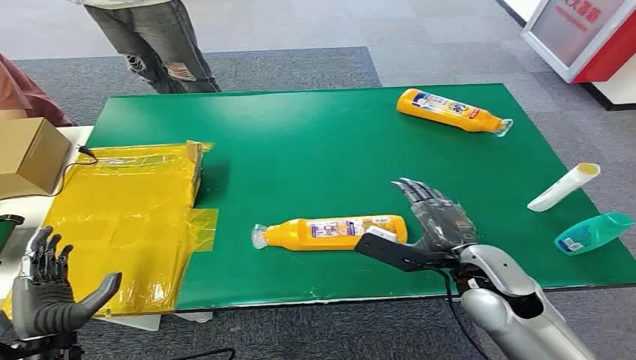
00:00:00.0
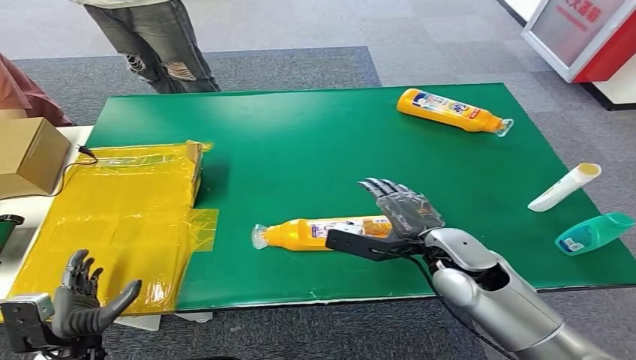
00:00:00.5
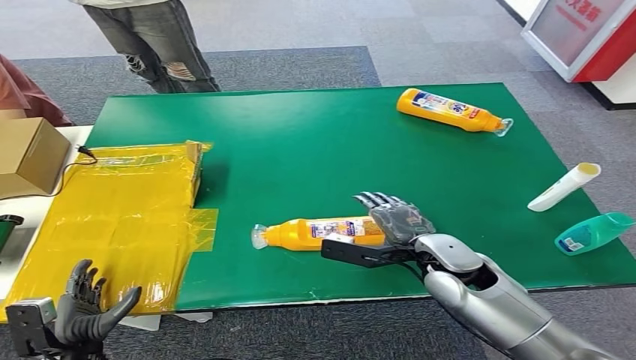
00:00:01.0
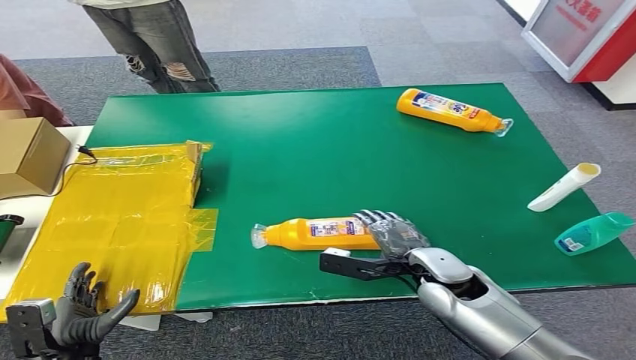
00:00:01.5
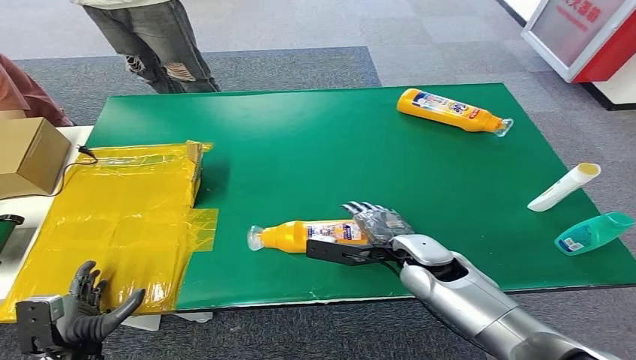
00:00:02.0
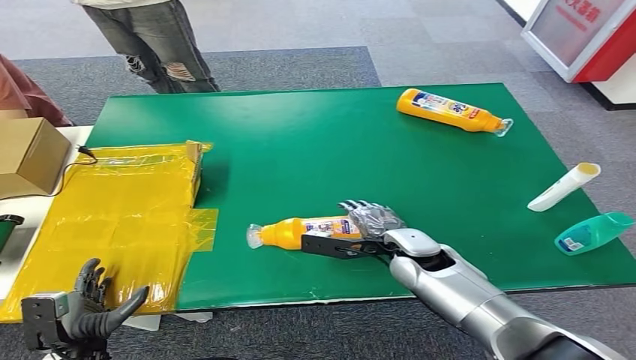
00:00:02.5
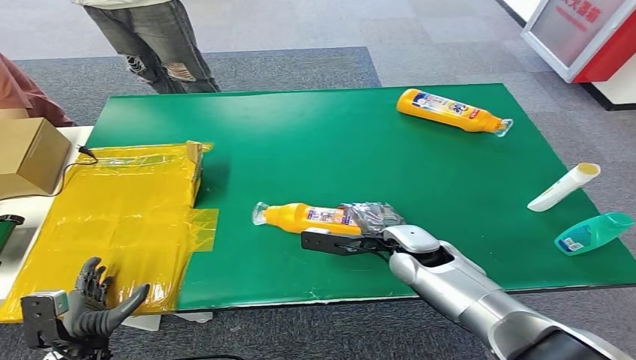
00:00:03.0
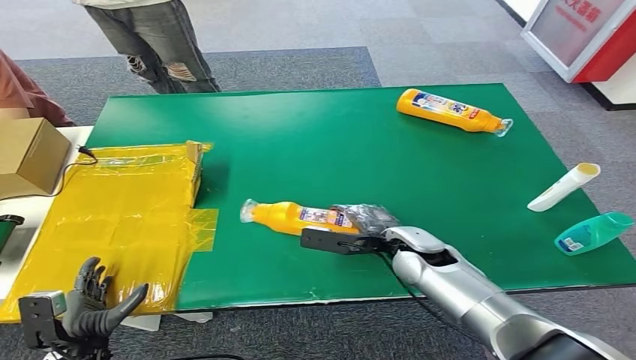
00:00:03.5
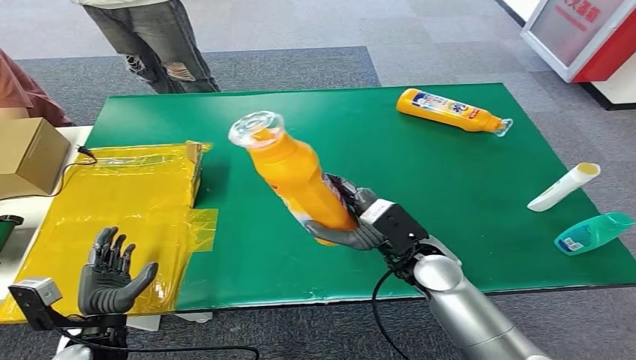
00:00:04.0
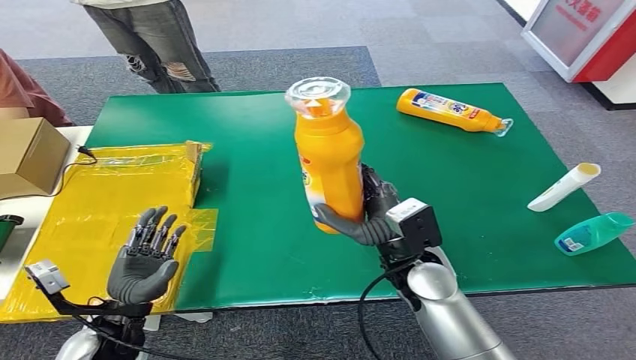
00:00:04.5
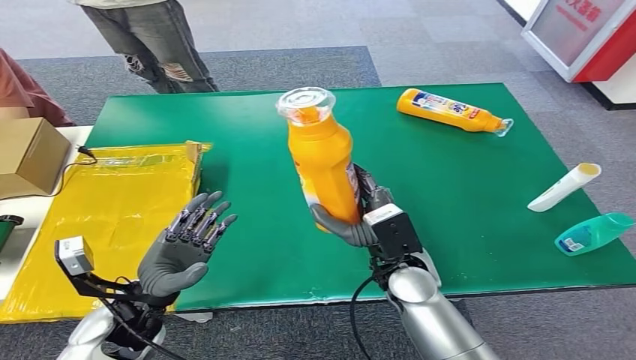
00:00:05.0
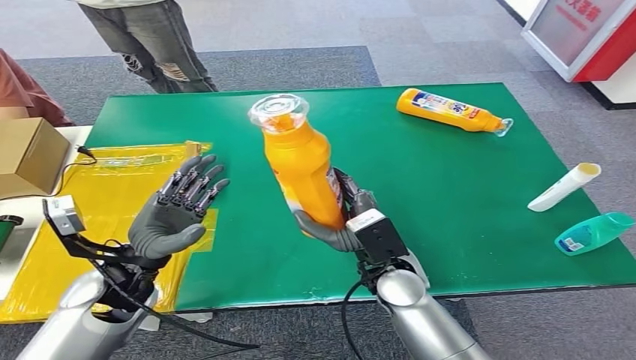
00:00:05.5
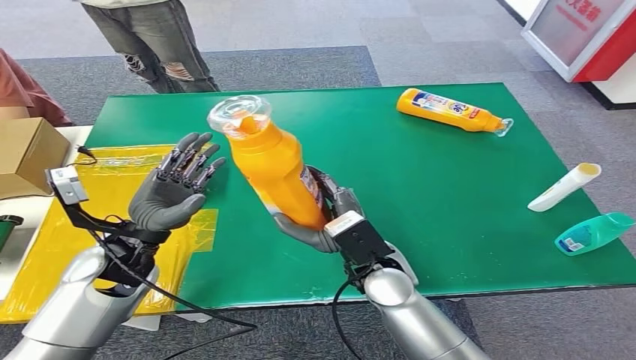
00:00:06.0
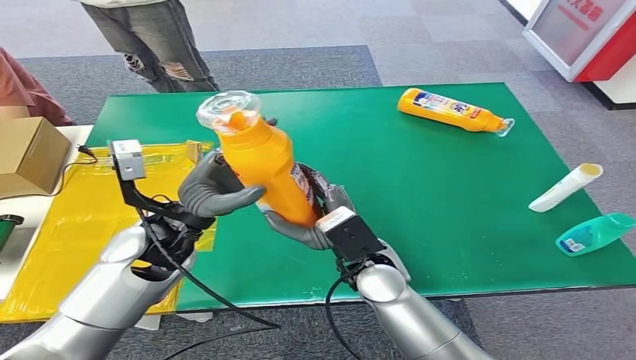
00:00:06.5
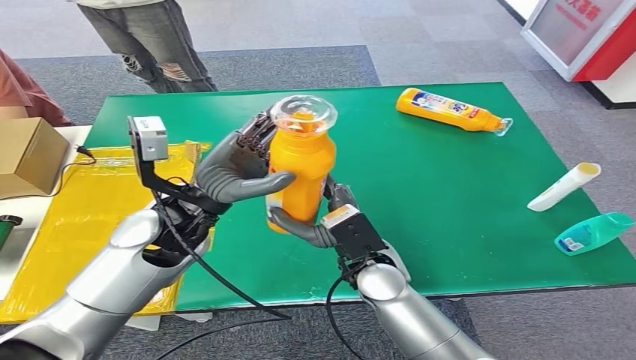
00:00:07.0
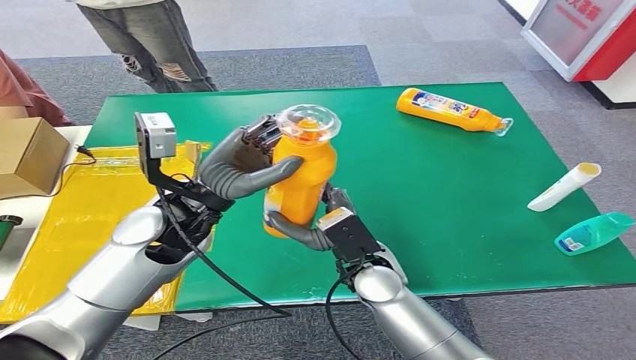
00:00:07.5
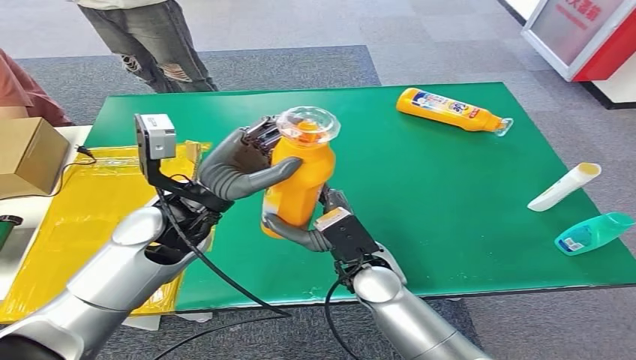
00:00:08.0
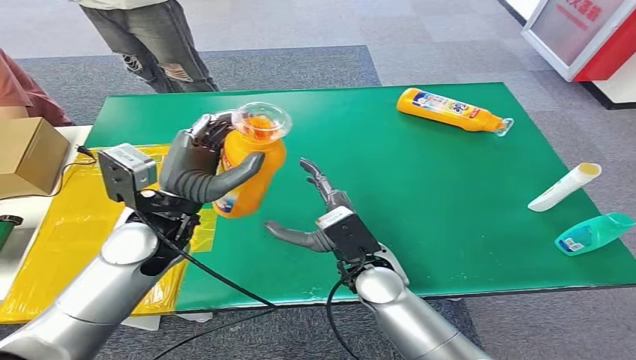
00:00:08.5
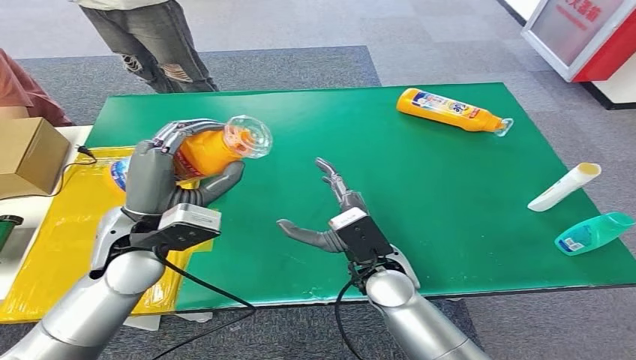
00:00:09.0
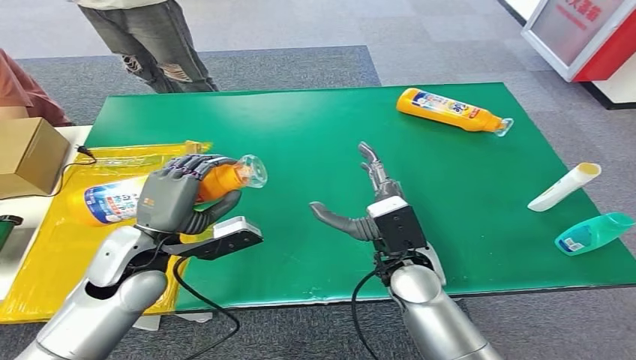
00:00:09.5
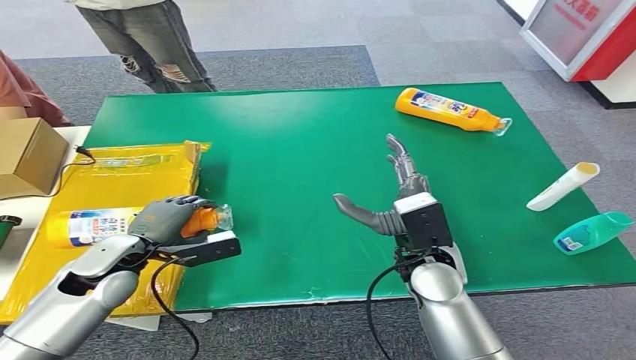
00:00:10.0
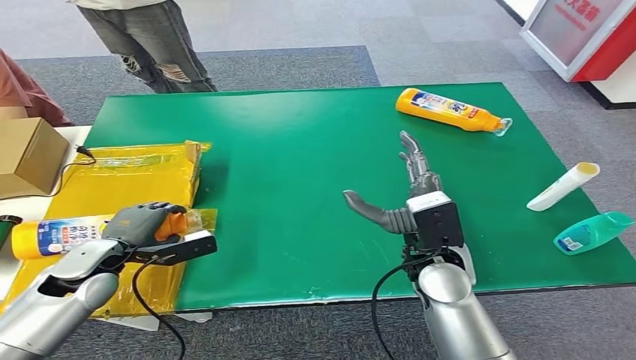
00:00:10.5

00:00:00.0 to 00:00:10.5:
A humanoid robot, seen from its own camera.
Step, 00:00:00.0 to 00:00:04.0: Pick up the bottle from the table.
Step, 00:00:04.5 to 00:00:10.5: Turn the bottle to the front side.
00:00:02.0 to 00:00:04.0: The left hand ends up about 5 cm from where it was.

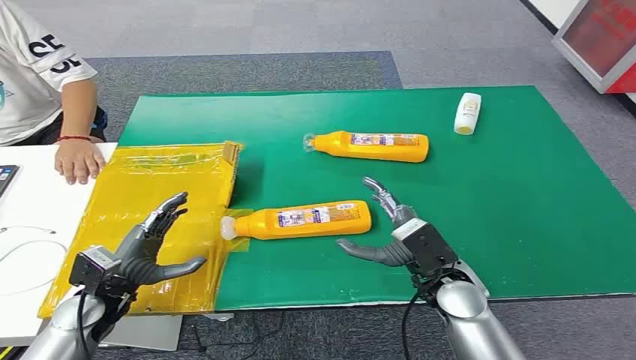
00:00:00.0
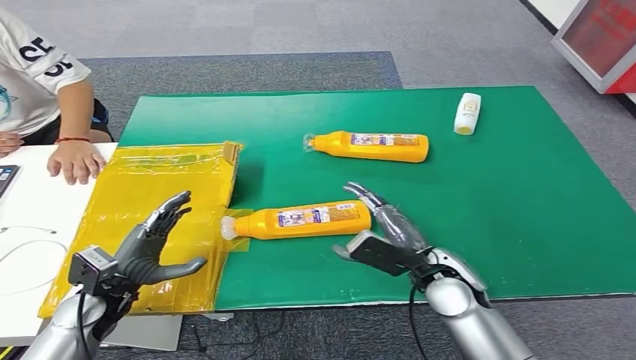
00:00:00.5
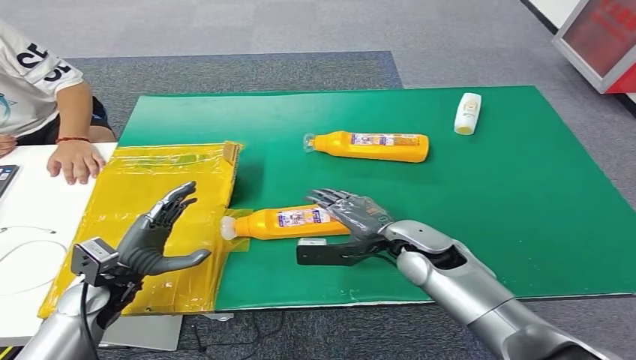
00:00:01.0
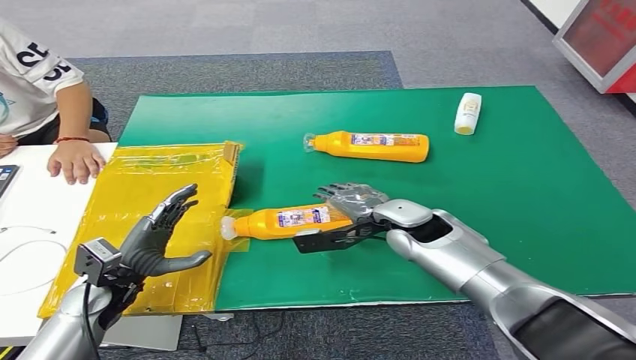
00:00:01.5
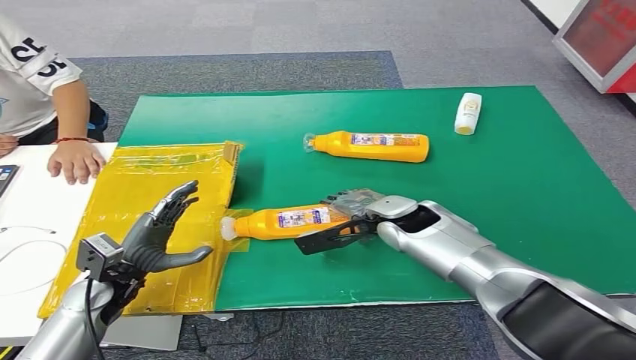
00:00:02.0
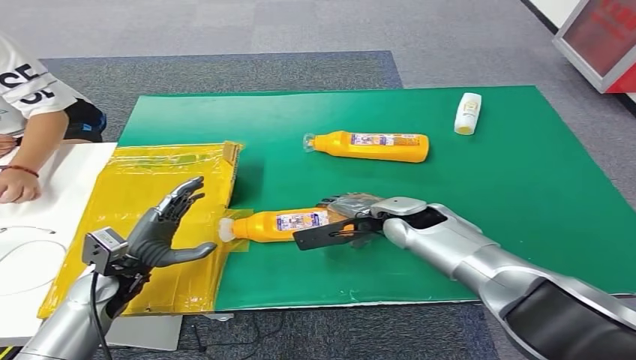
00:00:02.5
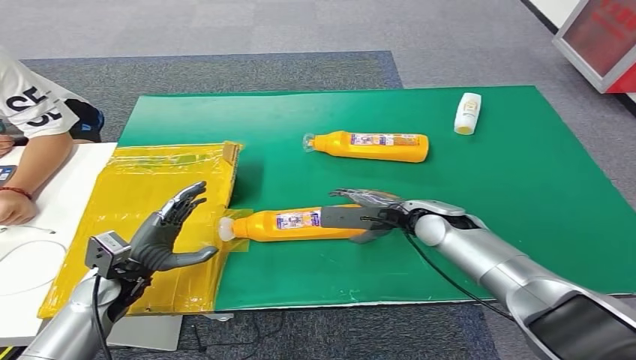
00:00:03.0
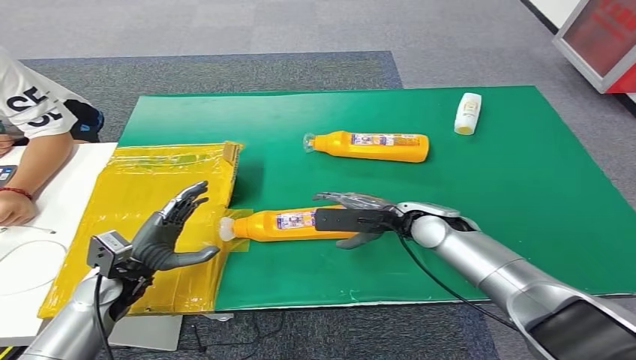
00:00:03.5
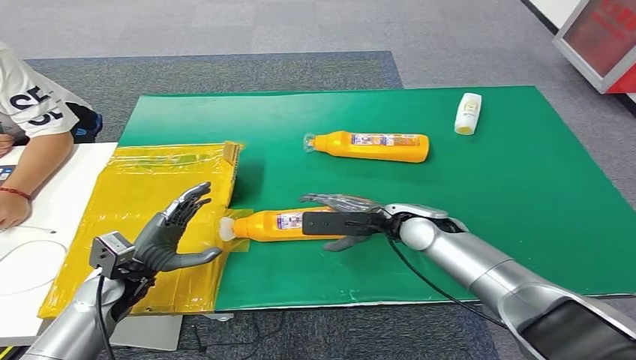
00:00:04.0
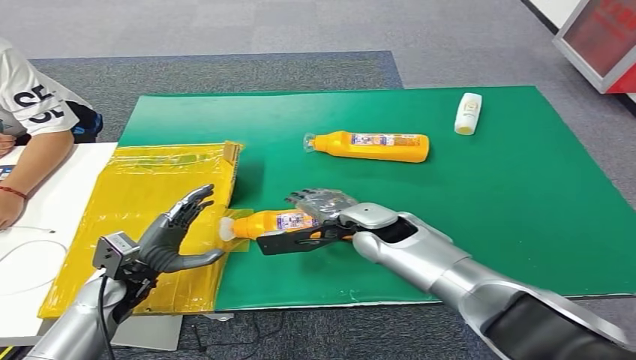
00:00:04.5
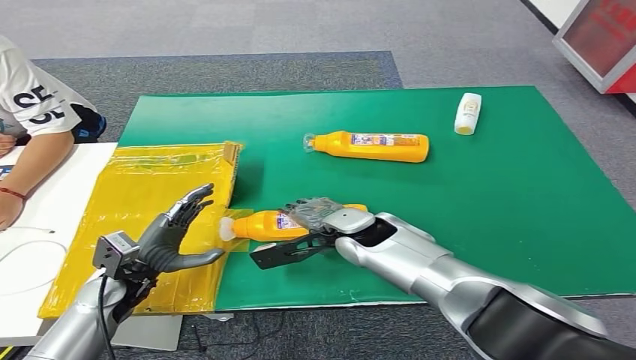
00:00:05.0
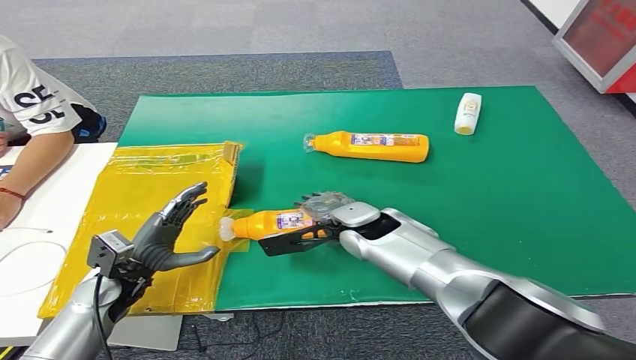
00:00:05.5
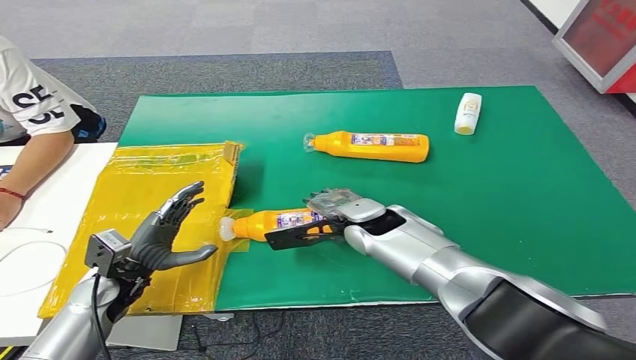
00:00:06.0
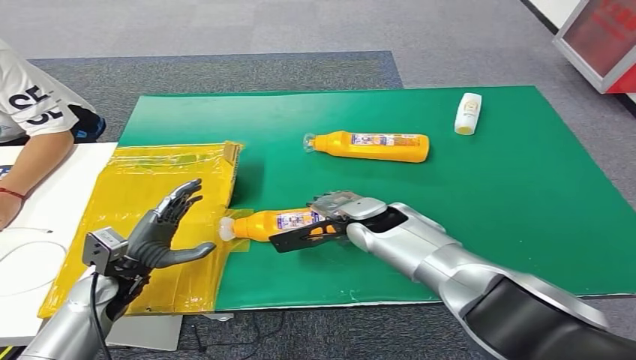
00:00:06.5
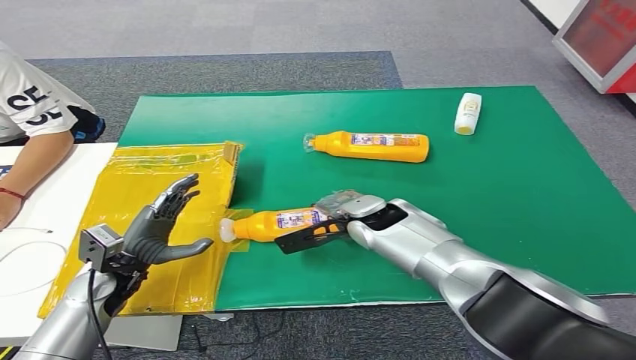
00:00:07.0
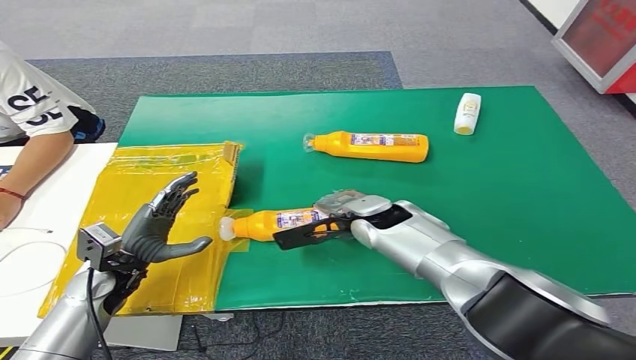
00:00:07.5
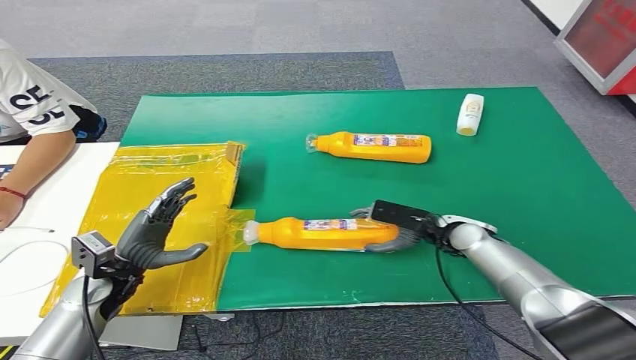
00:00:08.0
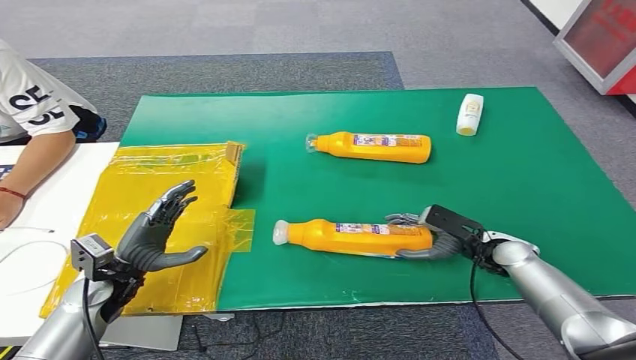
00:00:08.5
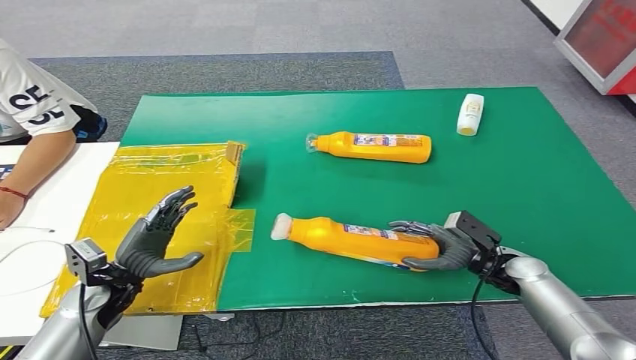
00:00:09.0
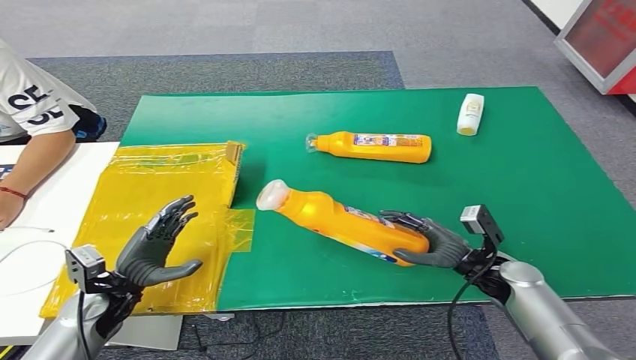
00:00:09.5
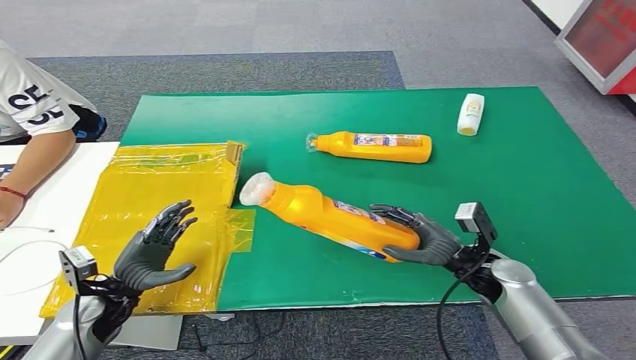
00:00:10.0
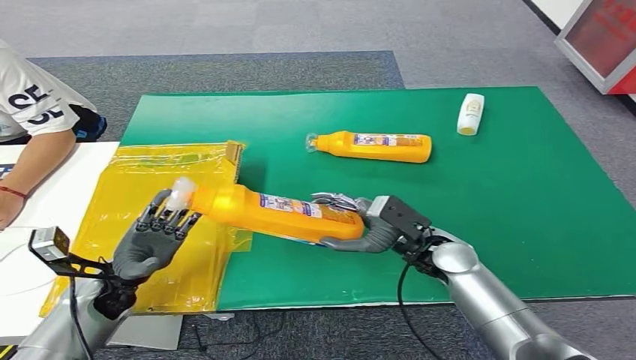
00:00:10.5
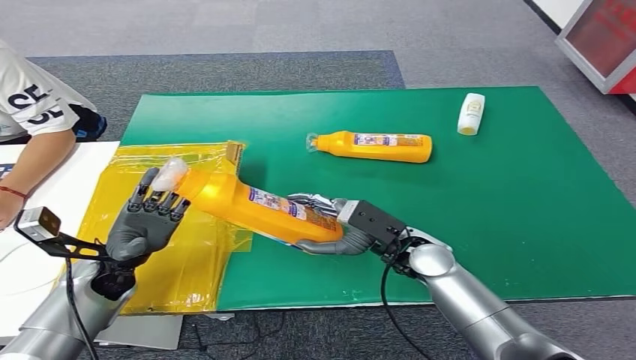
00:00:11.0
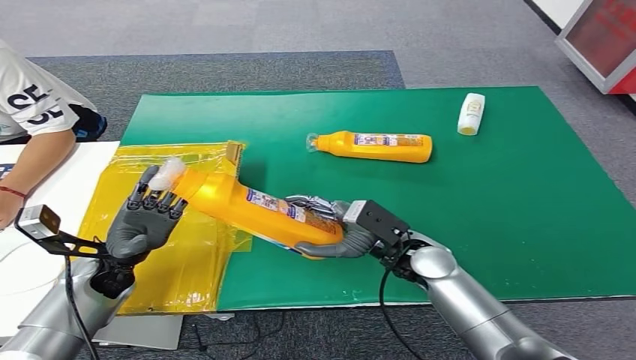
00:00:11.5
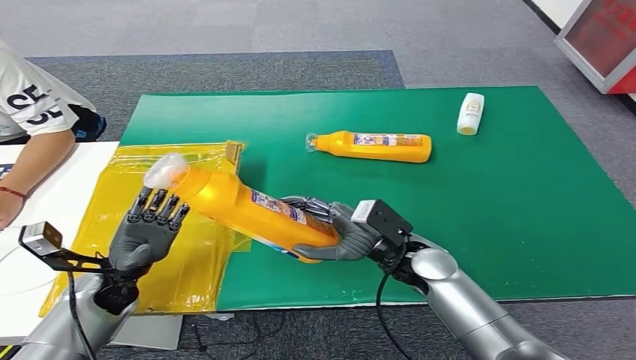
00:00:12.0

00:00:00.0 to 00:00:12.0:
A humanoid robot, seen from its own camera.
Step, 00:00:00.0 to 00:00:10.0: Pick up the bottle from the table.
00:00:04.0 to 00:00:06.0: The right hand travels to the left by some 10 cm.
00:00:06.0 to 00:00:08.0: The right hand is displaced to the right by about 15 cm.
00:00:08.0 to 00:00:10.0: The right hand goes some 5 cm backward, and moves roughly 10 cm to the right and comes back.
00:00:10.0 to 00:00:12.0: The right hand heads to the left and upward, covering some 15 cm.
